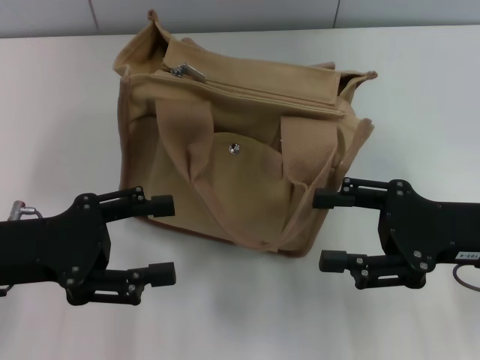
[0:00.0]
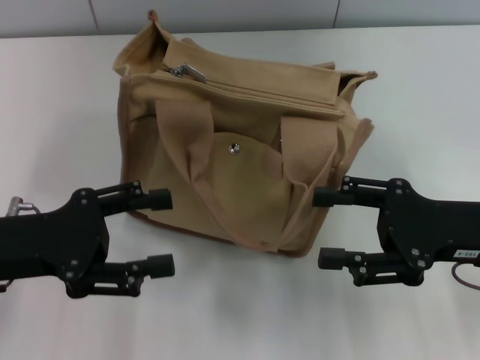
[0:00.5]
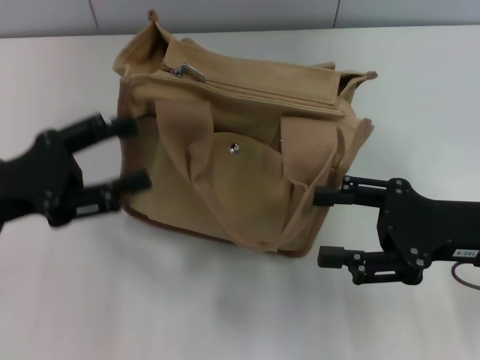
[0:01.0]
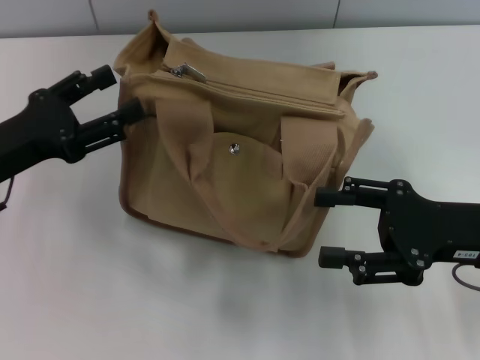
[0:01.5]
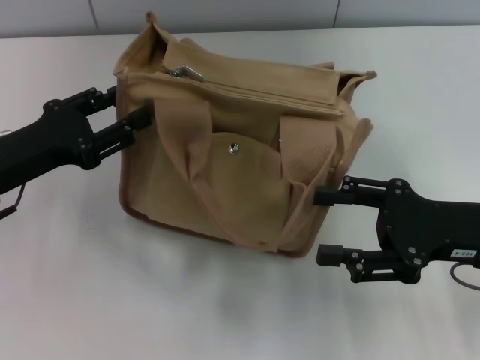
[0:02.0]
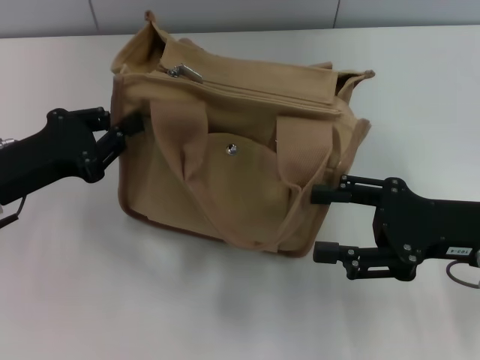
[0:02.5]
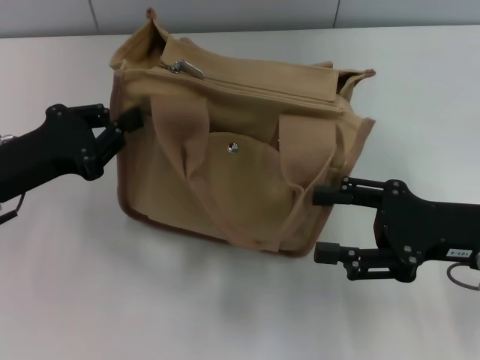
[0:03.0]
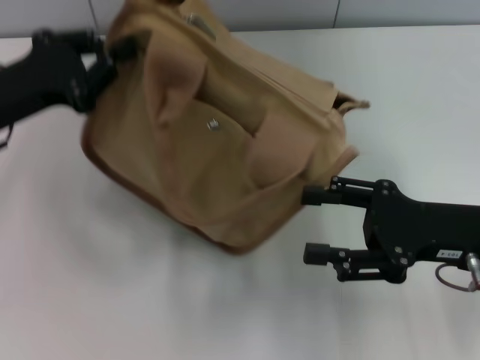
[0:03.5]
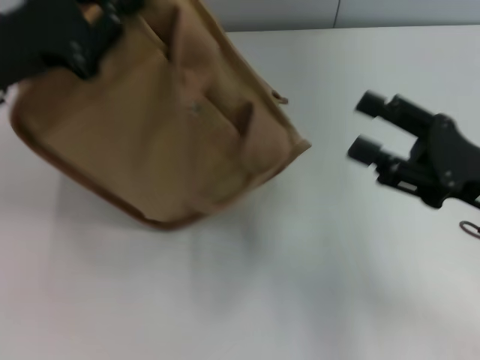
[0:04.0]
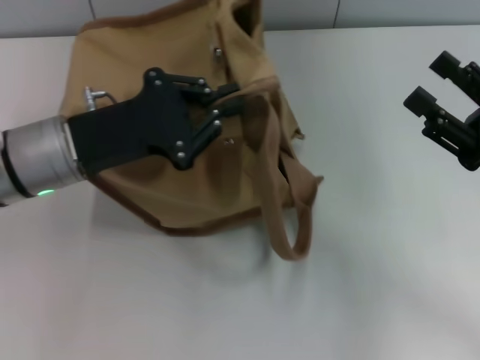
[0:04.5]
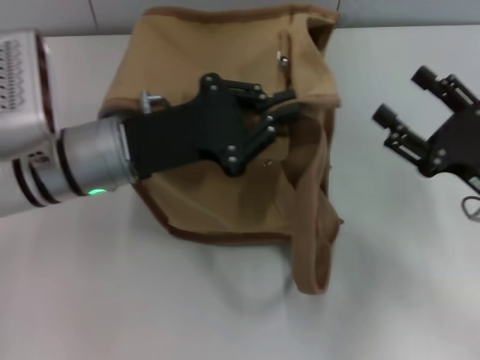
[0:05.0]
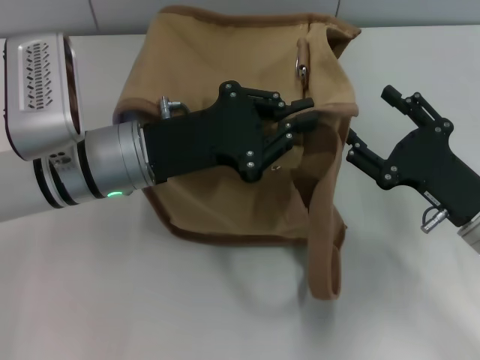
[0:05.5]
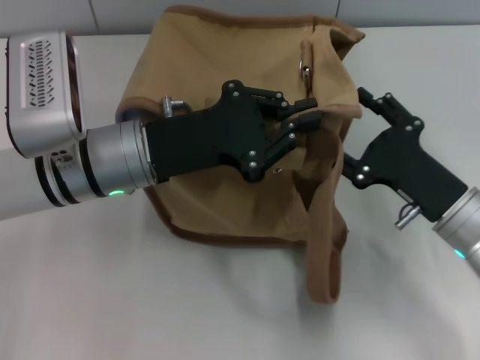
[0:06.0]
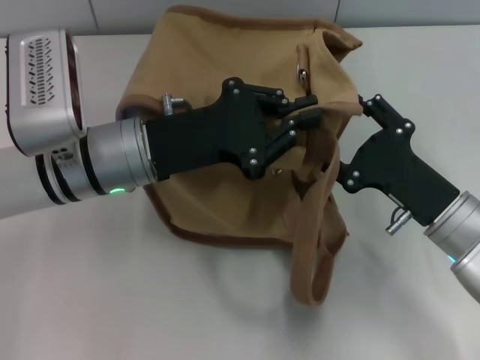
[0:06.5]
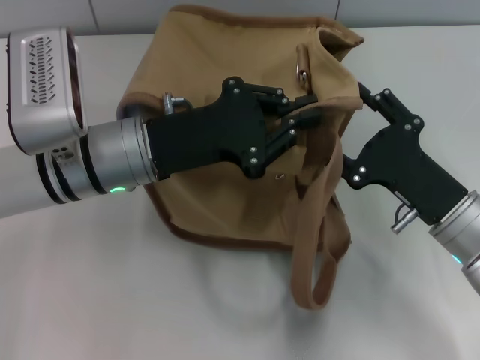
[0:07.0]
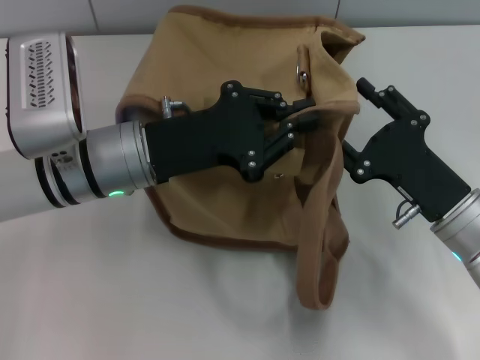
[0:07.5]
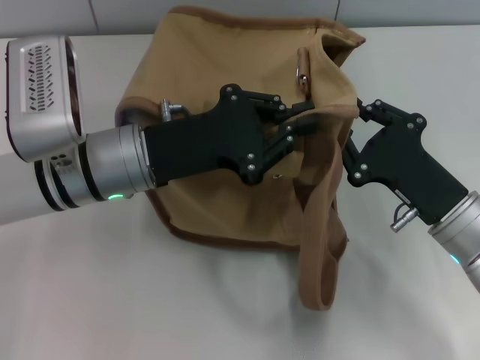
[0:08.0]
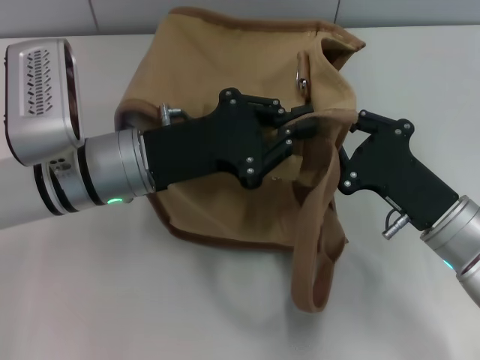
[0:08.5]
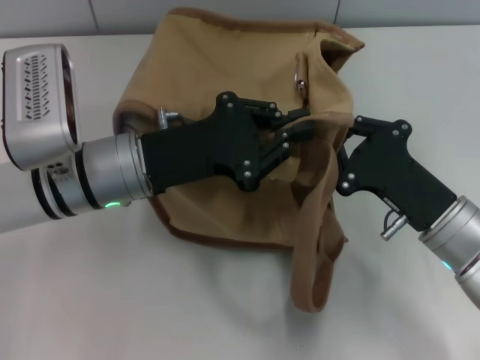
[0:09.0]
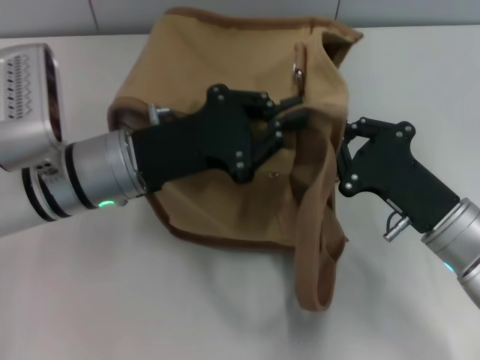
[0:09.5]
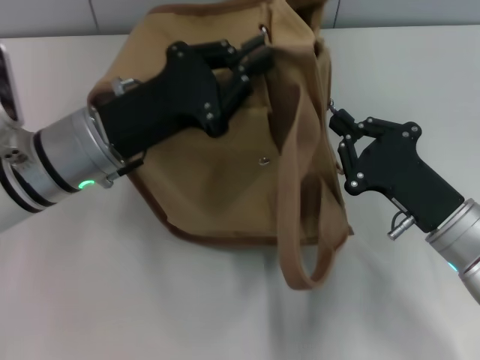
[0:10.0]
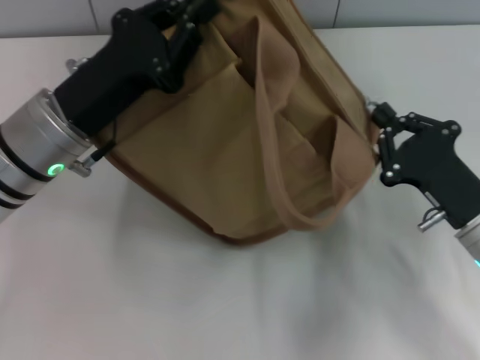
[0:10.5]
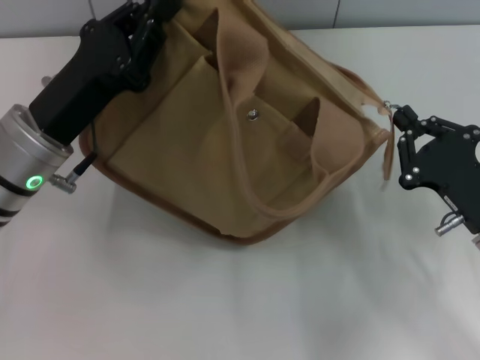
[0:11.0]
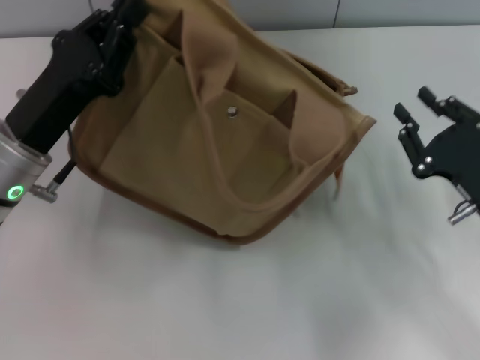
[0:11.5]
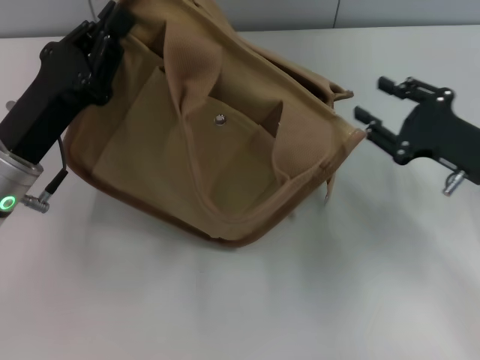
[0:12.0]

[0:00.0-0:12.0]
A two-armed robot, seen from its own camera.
Step, 0:00.0 to 0:11.0: Pull open the zipper with your right hand.
0:02.0 to 0:04.0: The left gripper travels upward by approximately 5 cm, and closes up.
0:04.0 to 0:06.0: The right gripper shifts approximately 5 cm downward; the left gripper heads to the right and downward, covering roughly 15 cm.
0:06.0 to 0:08.0: The right gripper closes its fingers.
0:08.0 to 0:10.0: The right gripper closes.
0:10.0 to 0:12.0: The left gripper goes approximately 5 cm to the left. The right gripper heads to the right and forward, covering some 10 cm, and opens its fingers.

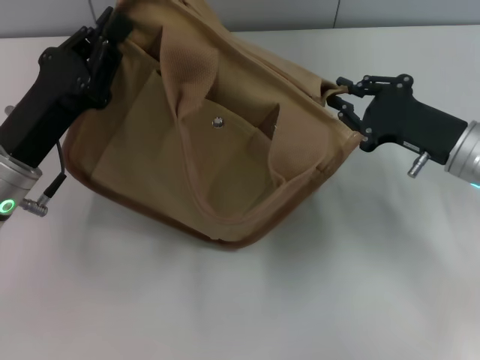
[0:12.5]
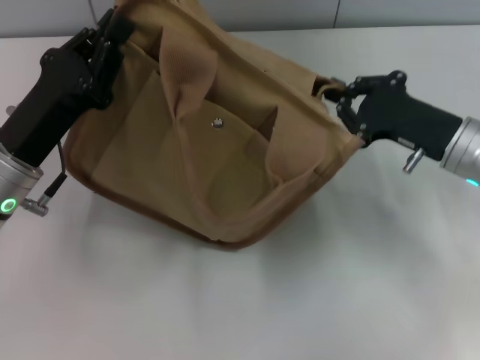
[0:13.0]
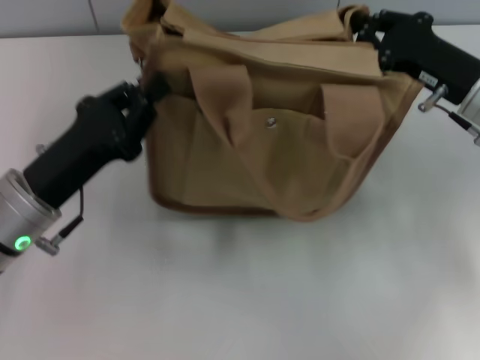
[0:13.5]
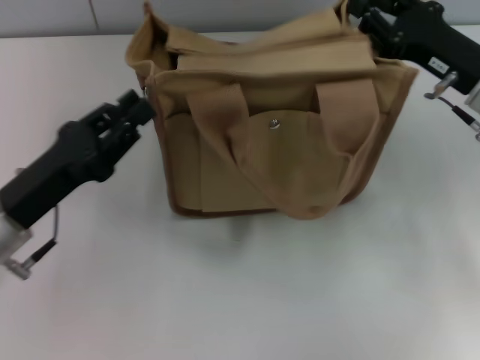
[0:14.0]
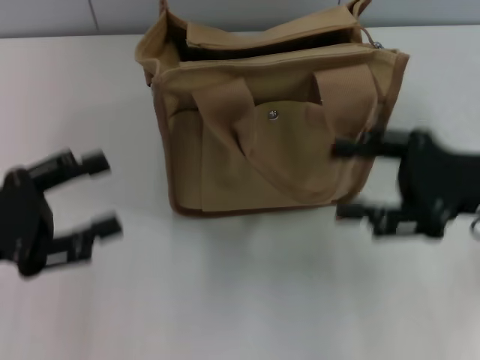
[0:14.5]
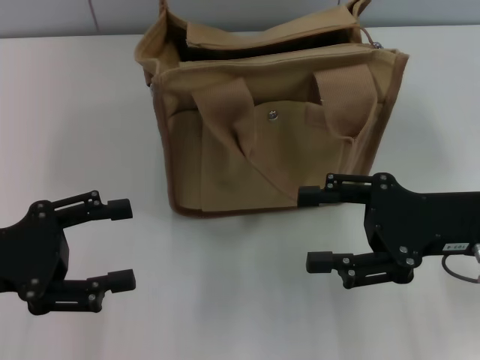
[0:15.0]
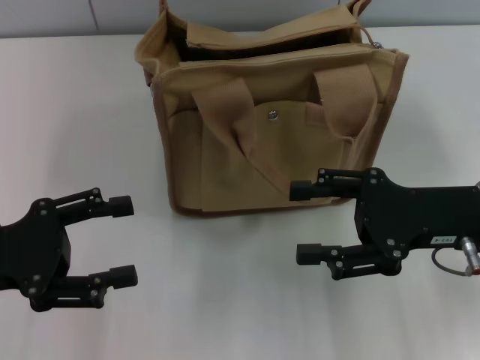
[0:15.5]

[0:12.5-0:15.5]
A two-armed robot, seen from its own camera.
0:12.5 to 0:14.0: The right gripper changes place by about 5 cm, and closes up.
0:14.0 to 0:15.5: The right gripper is displaced backward by about 10 cm, and opens, while the left gripper is displaced to the left by approximately 5 cm, and opens.
